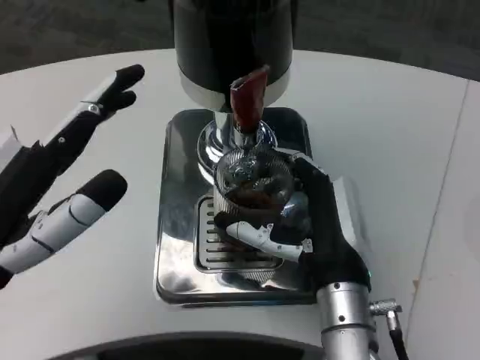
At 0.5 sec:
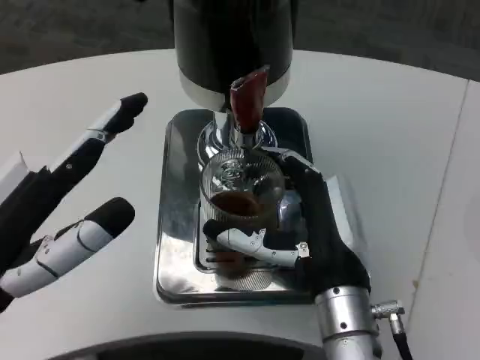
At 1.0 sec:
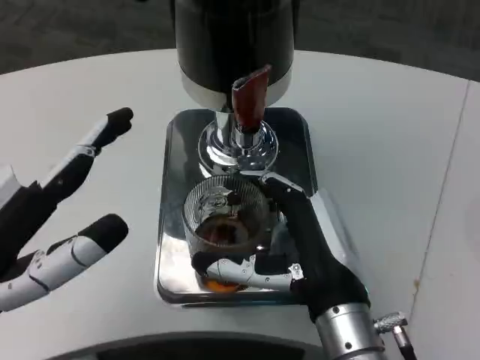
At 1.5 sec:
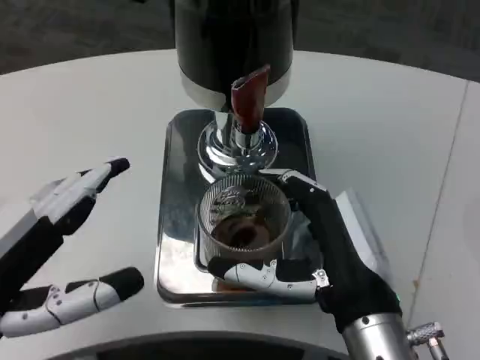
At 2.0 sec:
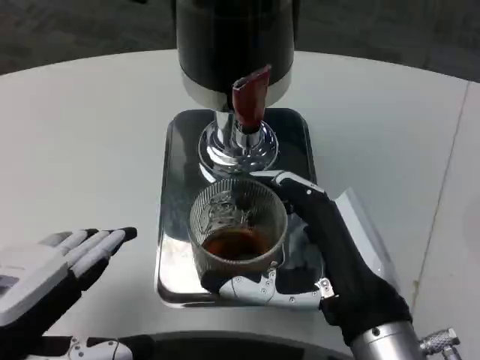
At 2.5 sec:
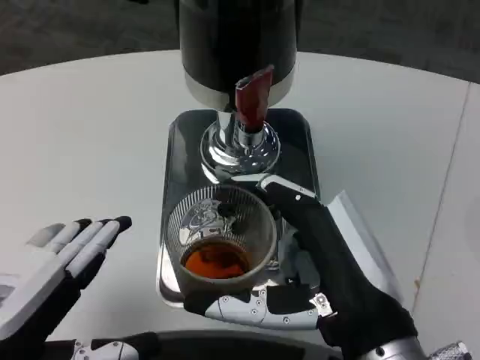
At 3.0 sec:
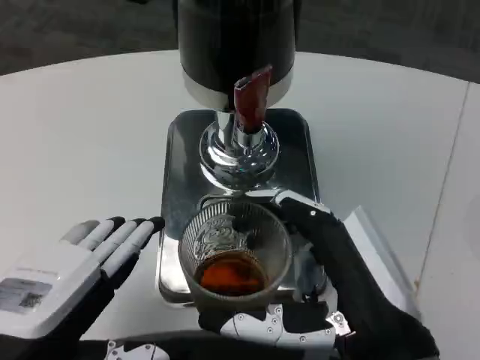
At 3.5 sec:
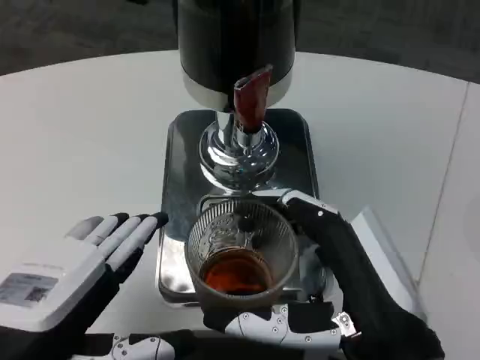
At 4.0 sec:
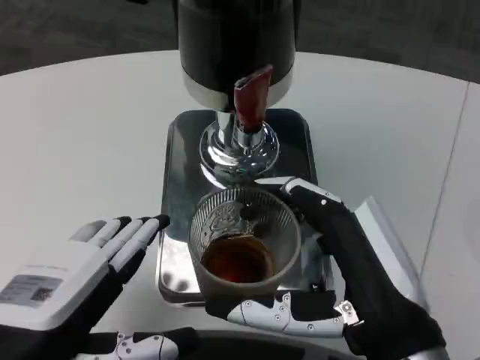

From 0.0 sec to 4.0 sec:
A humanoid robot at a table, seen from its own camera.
Task of the whole recording: Grasp the cup under the faucet to collect the drink, then remove the cup.
From 0.0 sec to 2.0 sec: The right hand goes approximately 5 cm backward.
